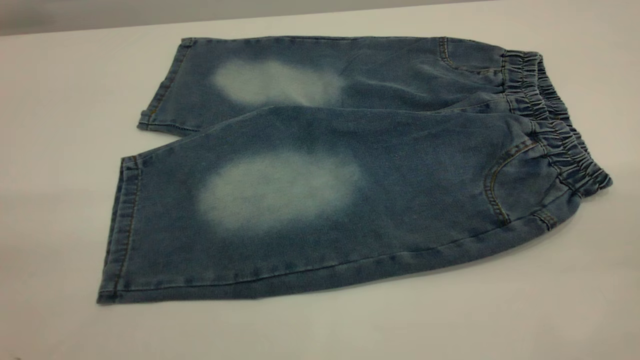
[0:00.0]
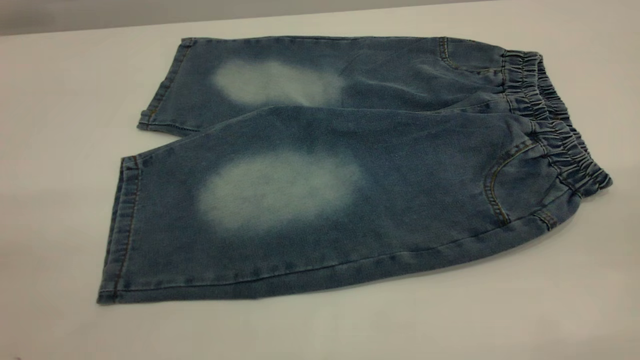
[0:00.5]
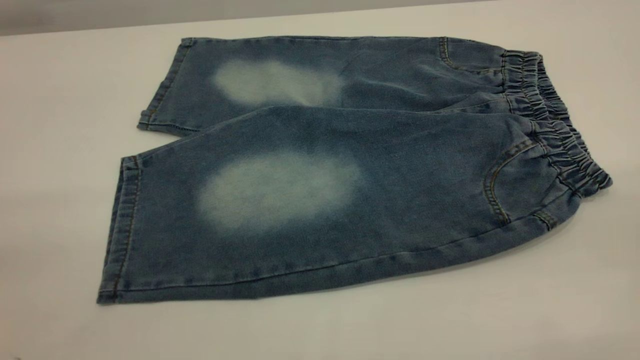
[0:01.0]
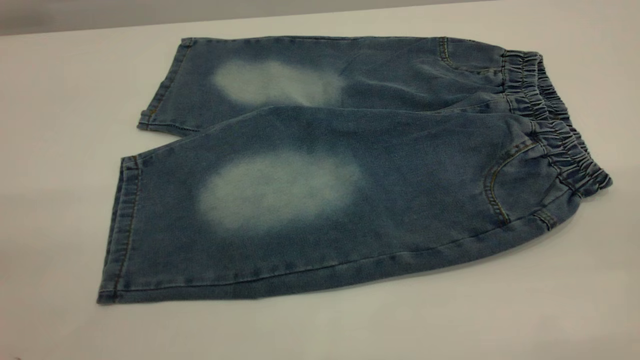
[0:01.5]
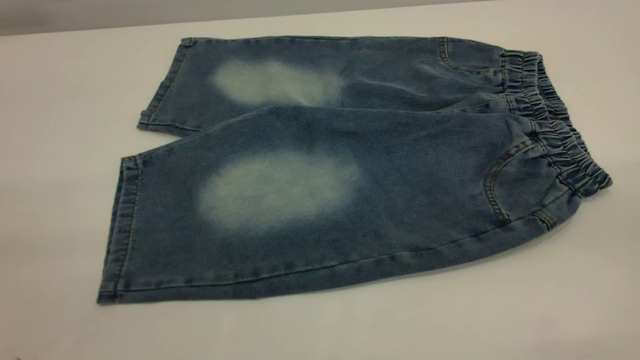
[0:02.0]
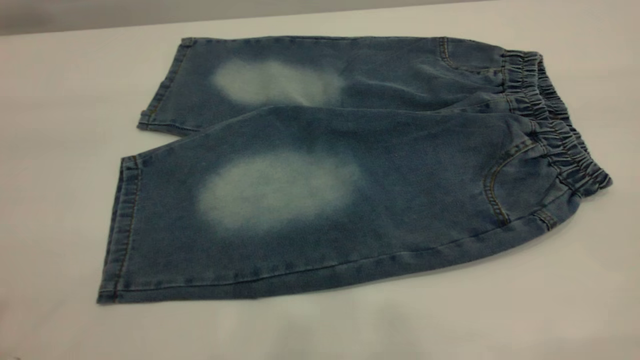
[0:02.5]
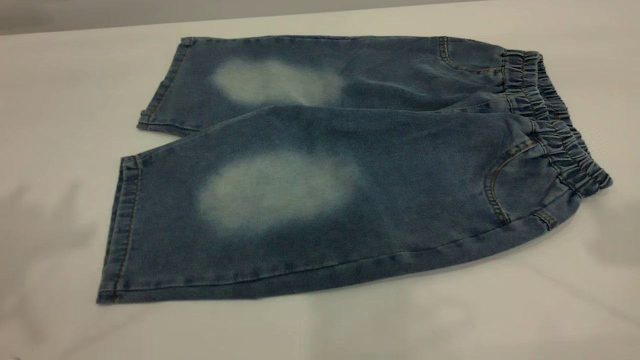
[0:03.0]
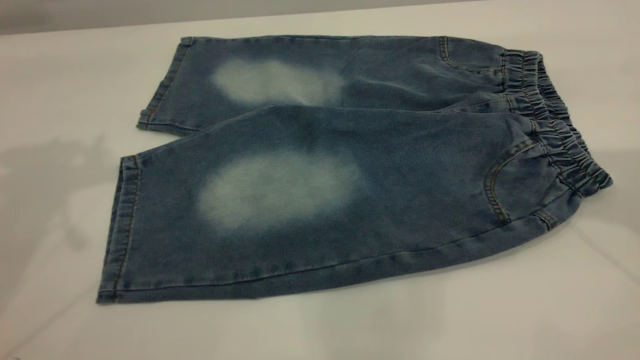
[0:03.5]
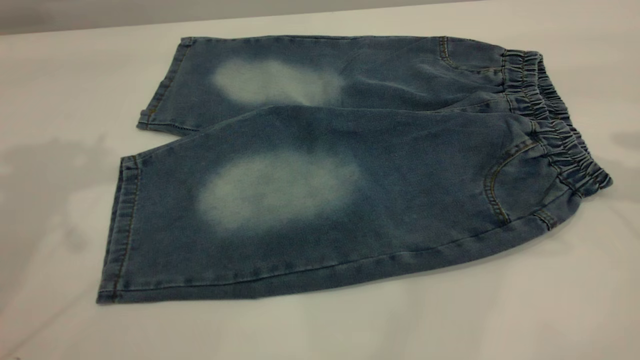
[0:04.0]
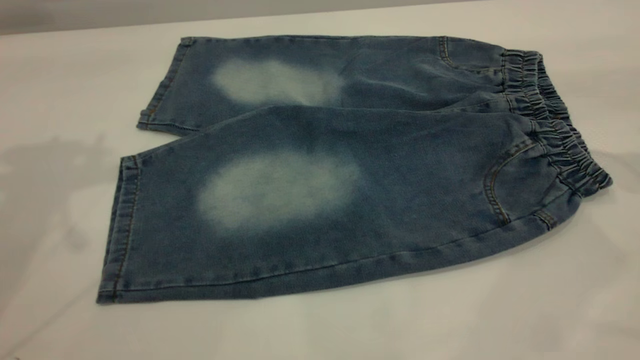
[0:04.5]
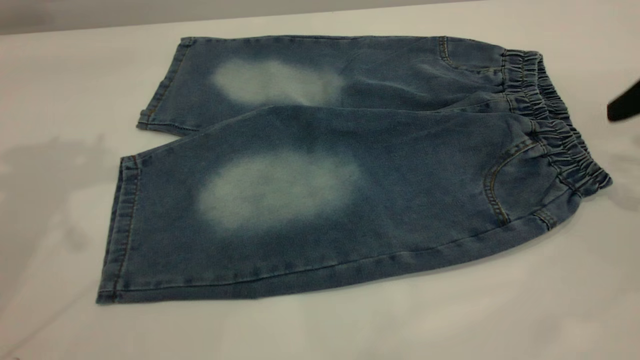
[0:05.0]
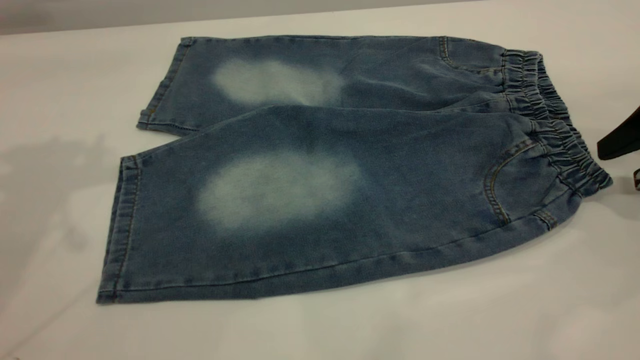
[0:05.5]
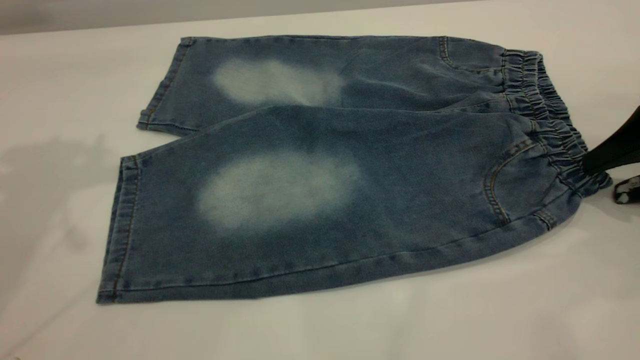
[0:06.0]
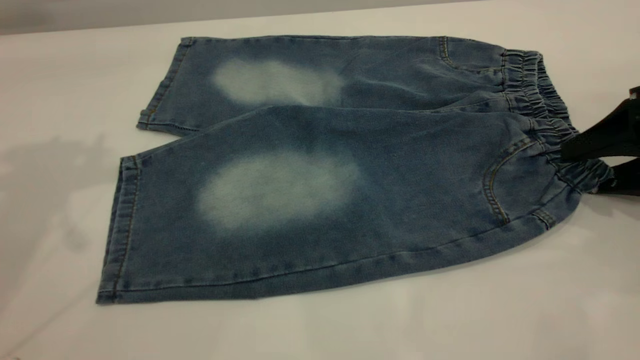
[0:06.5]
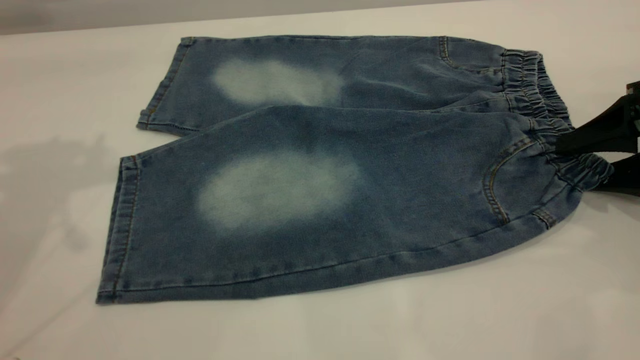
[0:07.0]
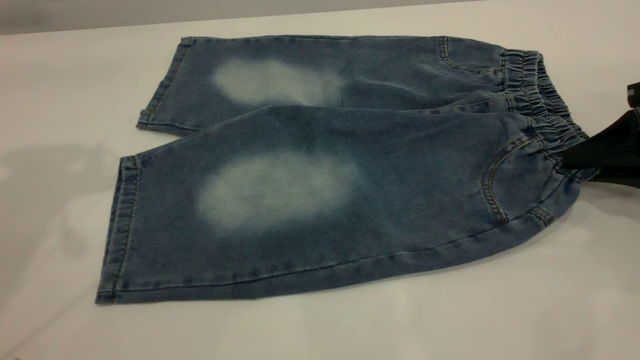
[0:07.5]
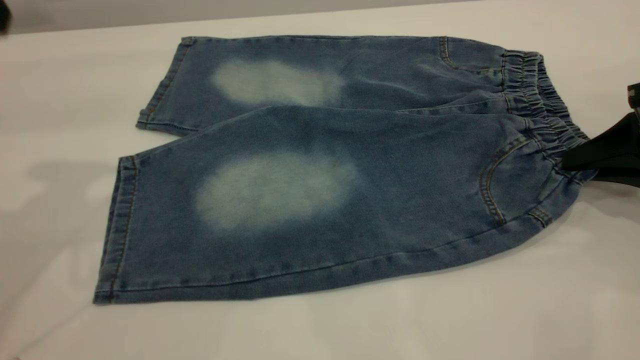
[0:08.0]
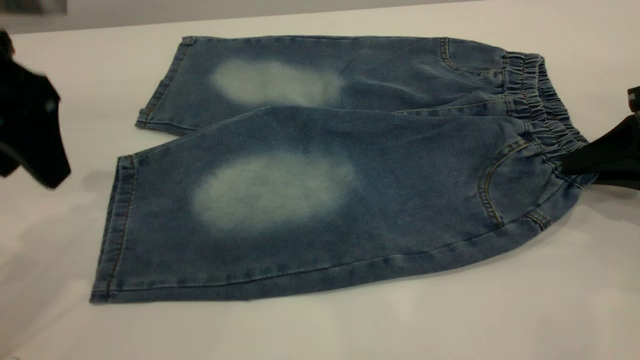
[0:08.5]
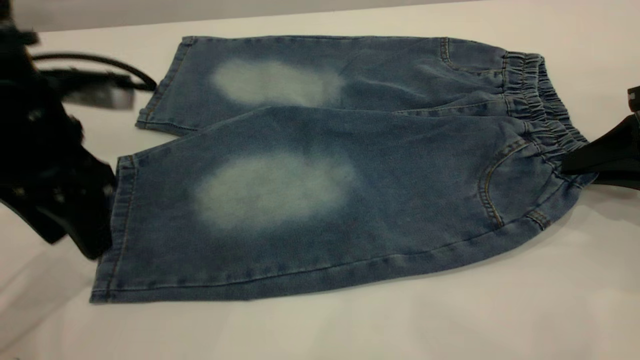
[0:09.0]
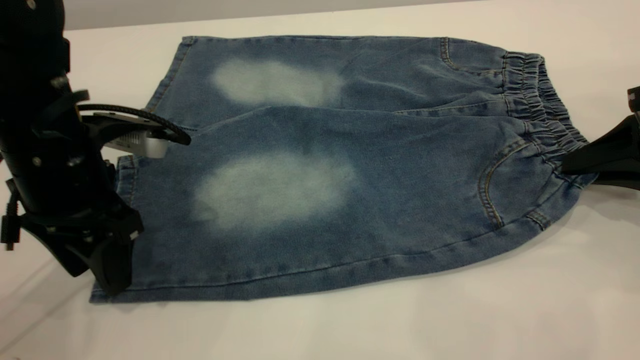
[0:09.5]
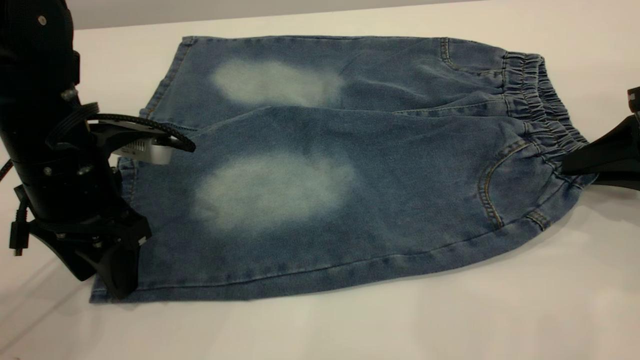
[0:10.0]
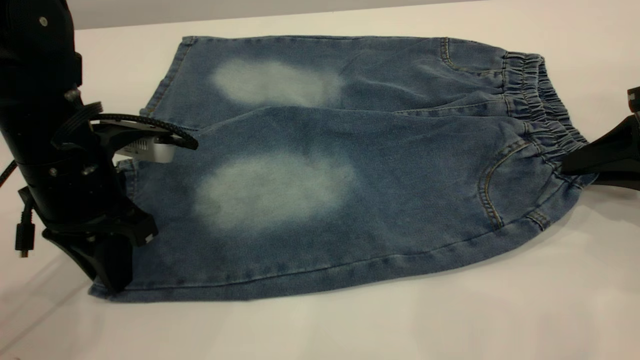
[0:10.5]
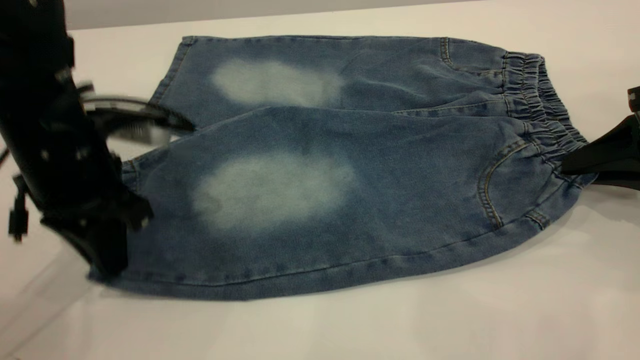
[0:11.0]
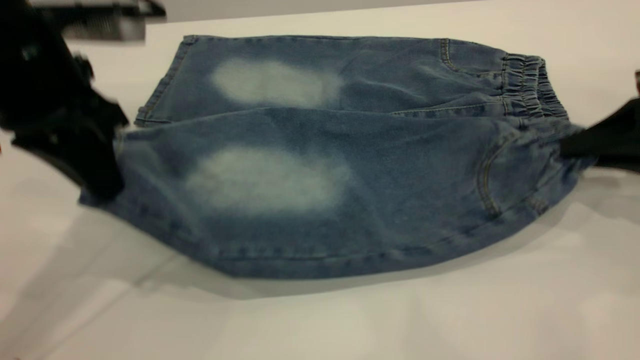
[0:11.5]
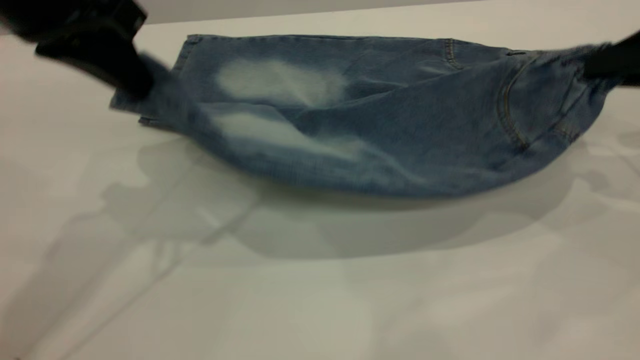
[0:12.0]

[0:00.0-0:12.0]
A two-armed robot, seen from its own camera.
0:04.0 to 0:06.0: The right gripper travels downward by about 20 cm.
0:06.0 to 0:08.0: The right gripper closes up.
0:08.0 to 0:10.0: The left gripper moves downward, some 20 cm.
0:10.0 to 0:12.0: The right gripper travels upward by approximately 10 cm. Meanwhile the left gripper goes about 15 cm upward, and closes its fingers.

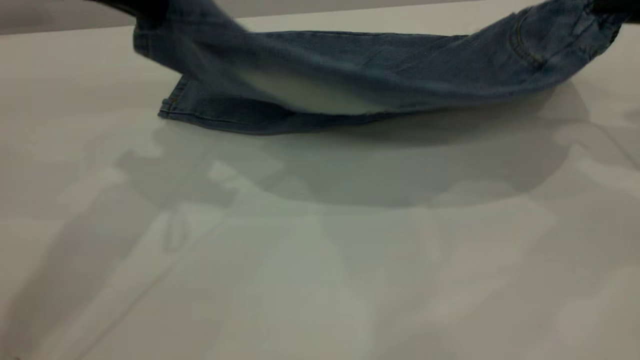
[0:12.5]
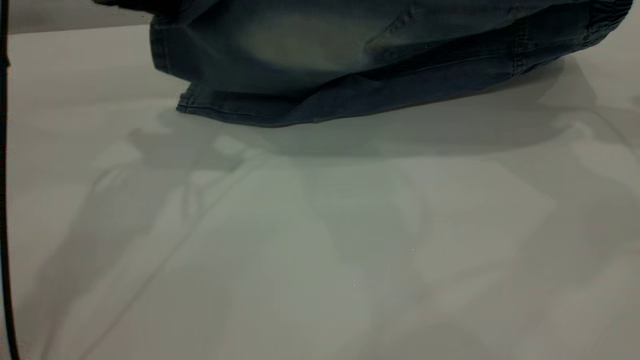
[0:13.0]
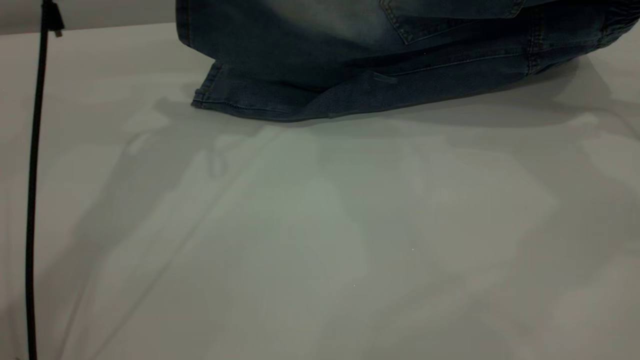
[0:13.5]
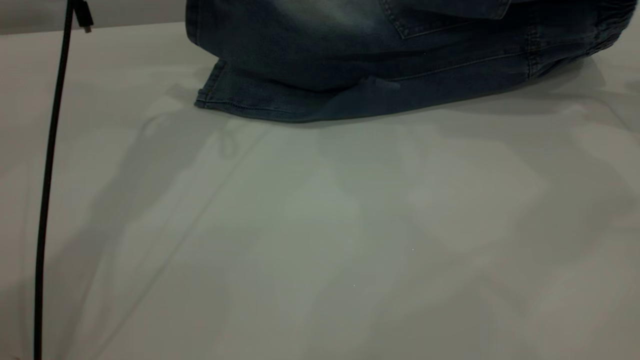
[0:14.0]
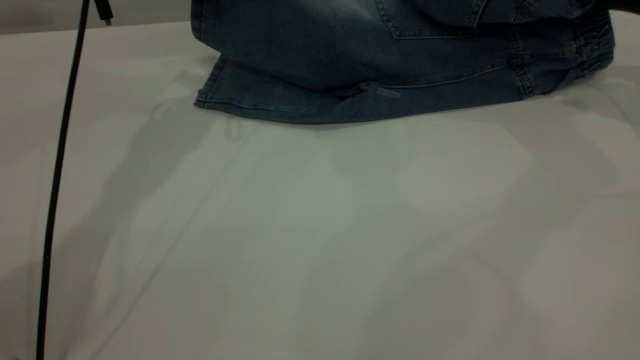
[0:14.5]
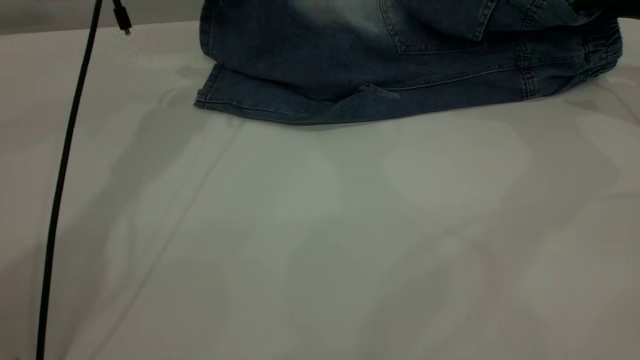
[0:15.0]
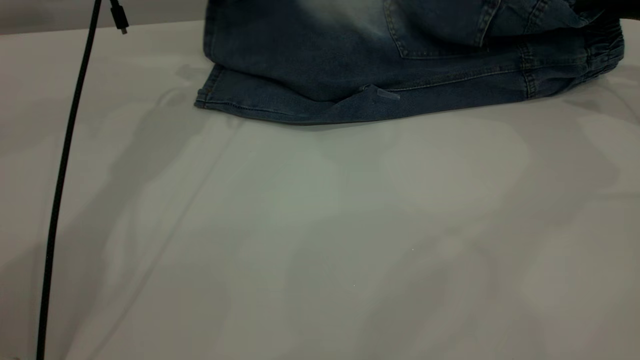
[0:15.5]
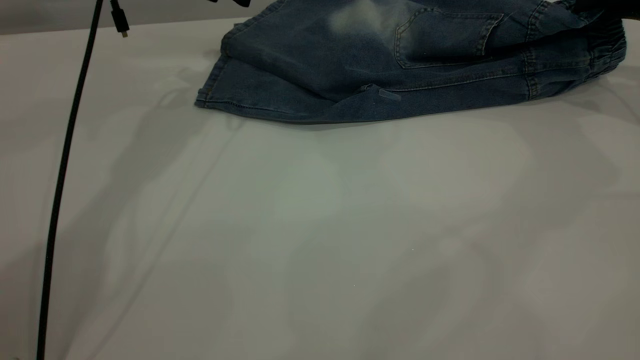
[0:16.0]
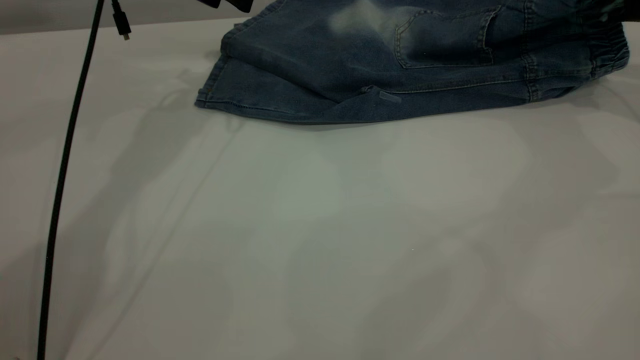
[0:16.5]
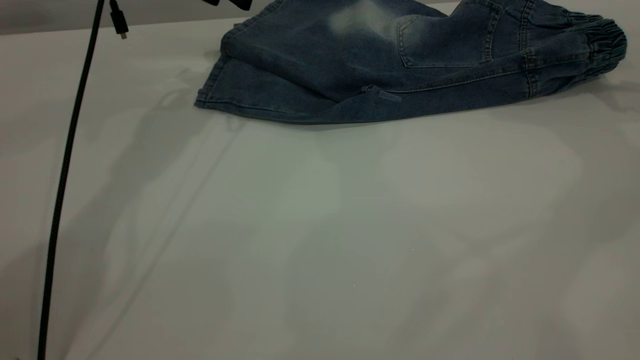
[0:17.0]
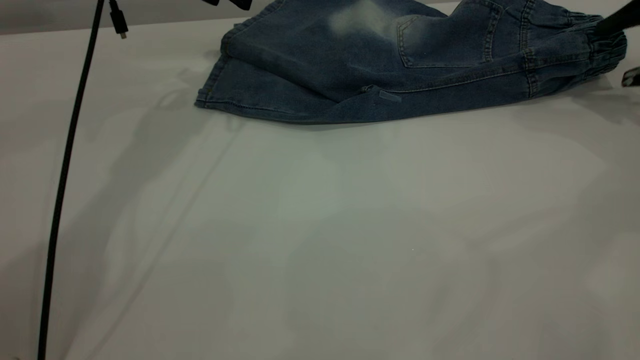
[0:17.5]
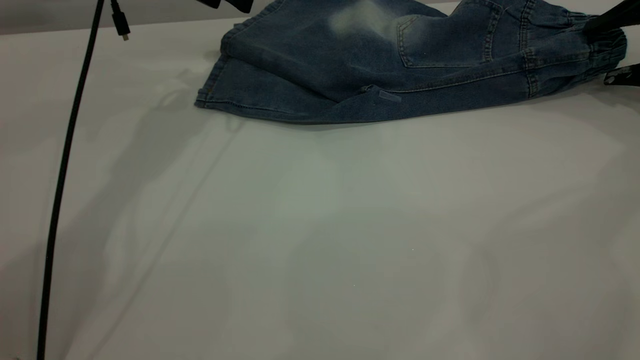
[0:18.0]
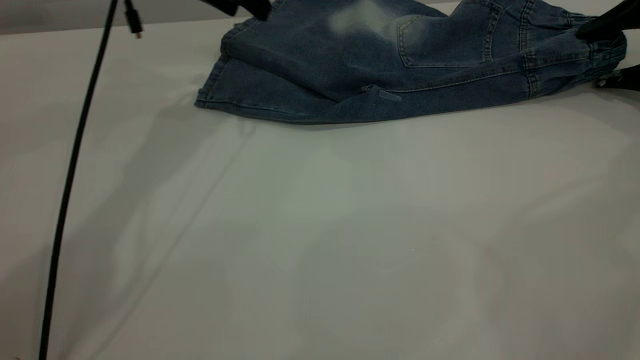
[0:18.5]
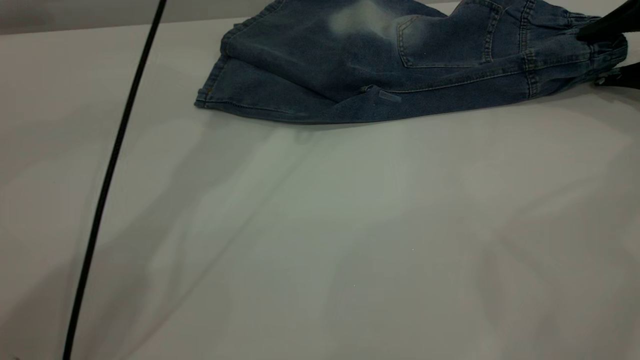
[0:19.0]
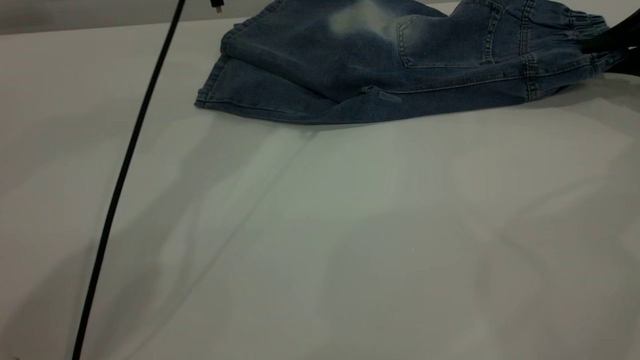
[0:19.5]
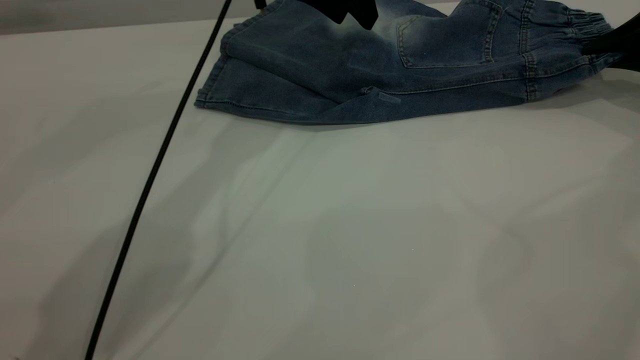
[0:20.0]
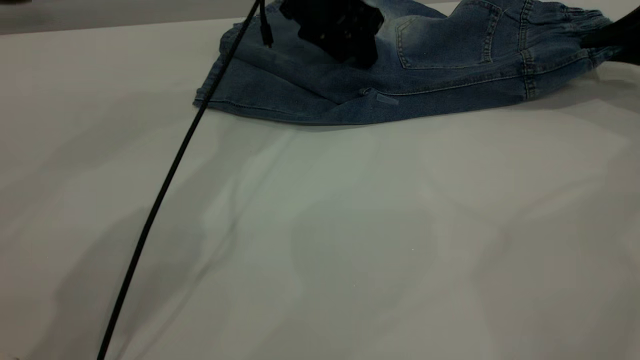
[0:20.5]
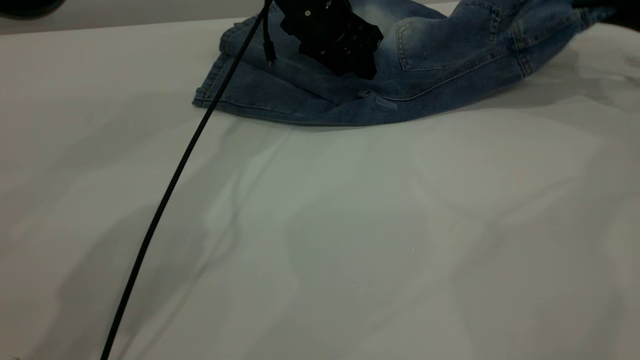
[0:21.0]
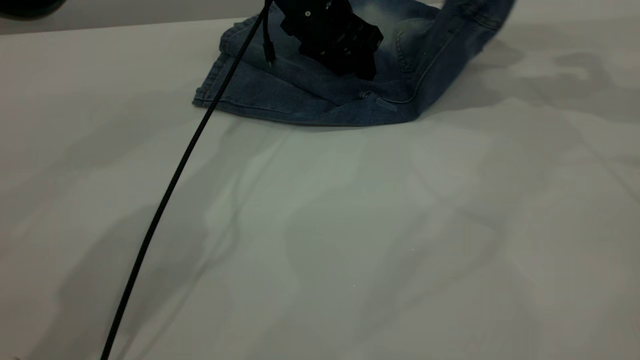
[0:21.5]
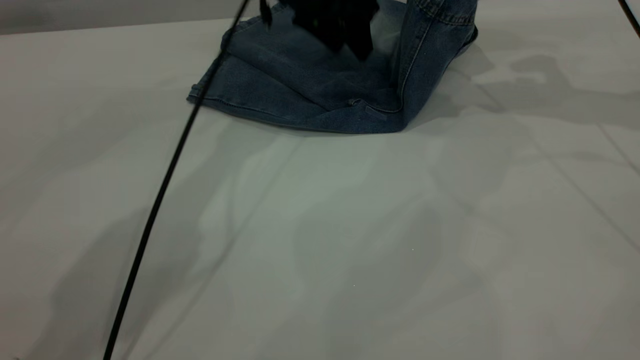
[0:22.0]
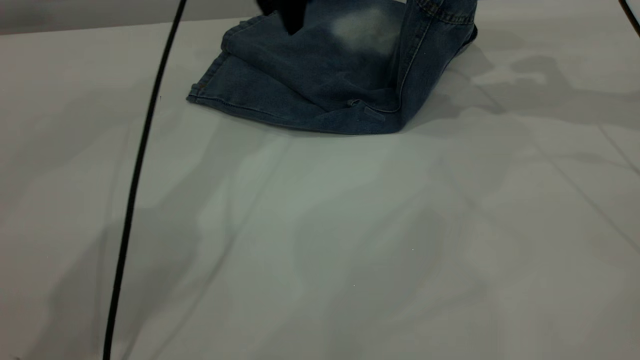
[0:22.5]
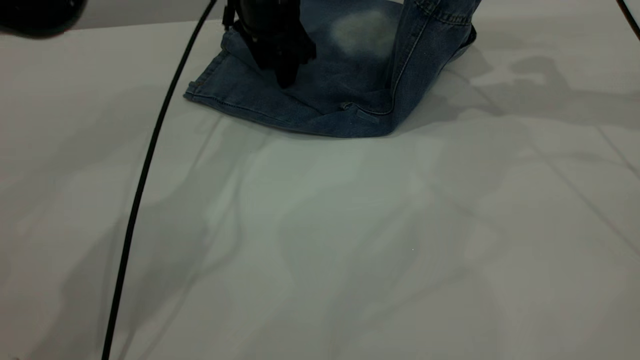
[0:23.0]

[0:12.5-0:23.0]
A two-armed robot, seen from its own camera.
Step, 0:12.5 to 0:16.5: Fold the bottom of the pants upward.
0:12.5 to 0:14.5: The left gripper goes roughly 15 cm forward, while the right gripper shifts about 5 cm forward.
0:14.5 to 0:16.5: The right gripper opens up. The left gripper opens.
0:16.5 to 0:19.0: The left gripper goes approximately 10 cm to the right. Meanwhile the right gripper heads downward, covering about 10 cm.
0:19.0 to 0:21.0: The left gripper is displaced downward by roughly 15 cm, while the right gripper ends up some 5 cm from where it was, and closes.
0:21.0 to 0:23.0: The right gripper travels to the left and upward by some 15 cm. Meanwhile the left gripper reaches approximately 10 cm upward, then returns.
